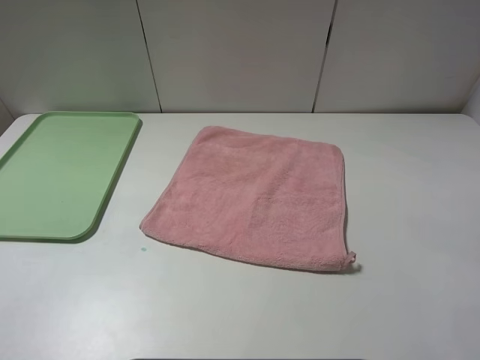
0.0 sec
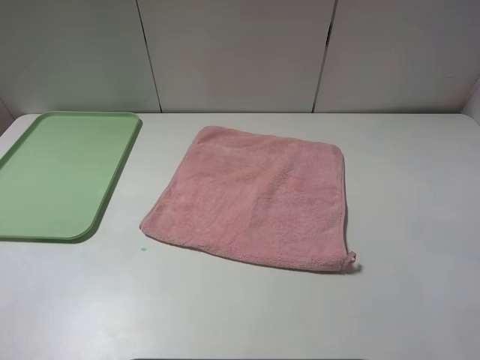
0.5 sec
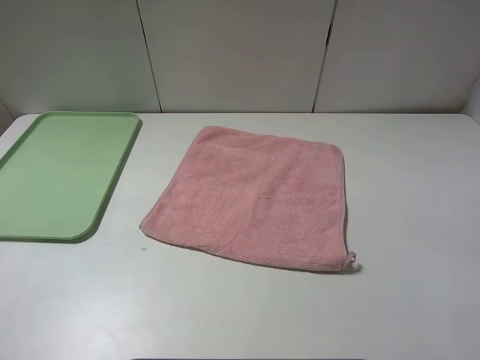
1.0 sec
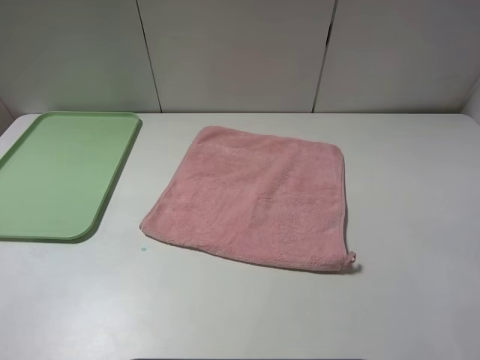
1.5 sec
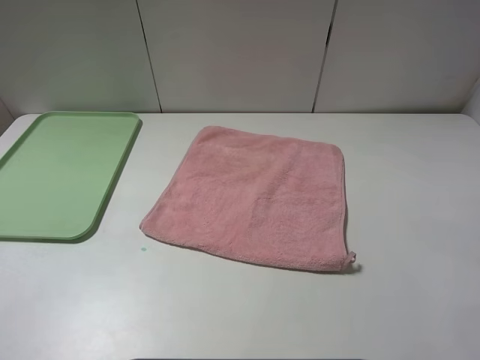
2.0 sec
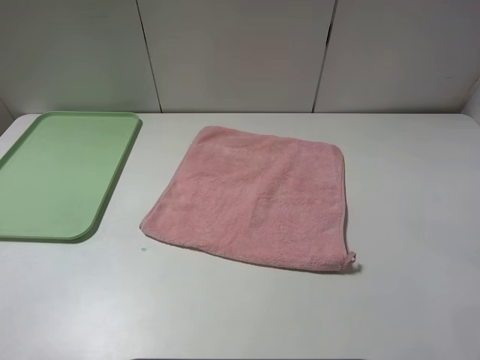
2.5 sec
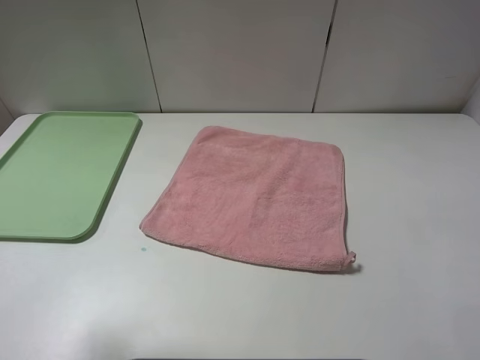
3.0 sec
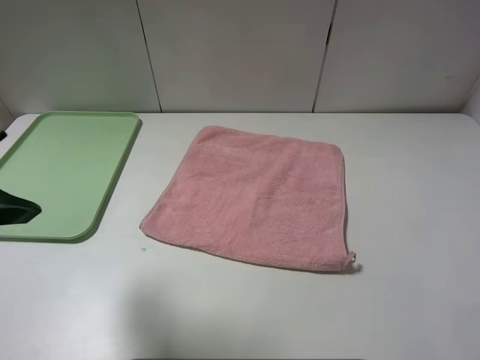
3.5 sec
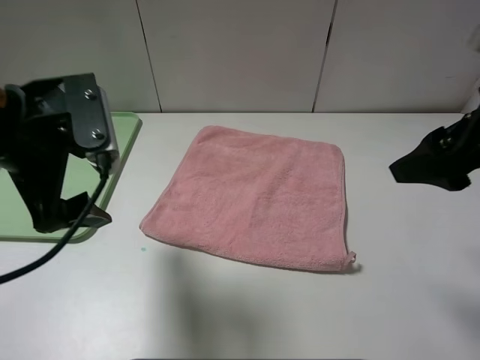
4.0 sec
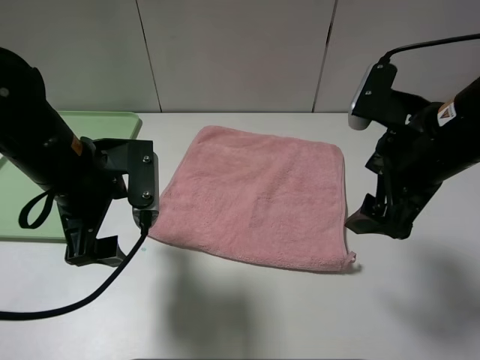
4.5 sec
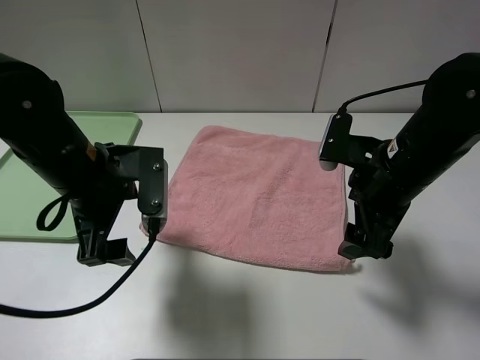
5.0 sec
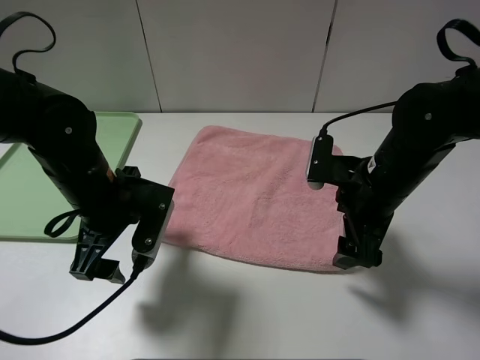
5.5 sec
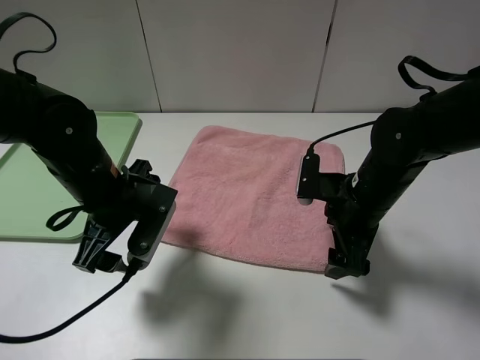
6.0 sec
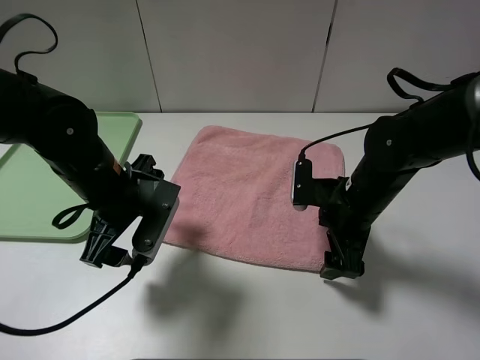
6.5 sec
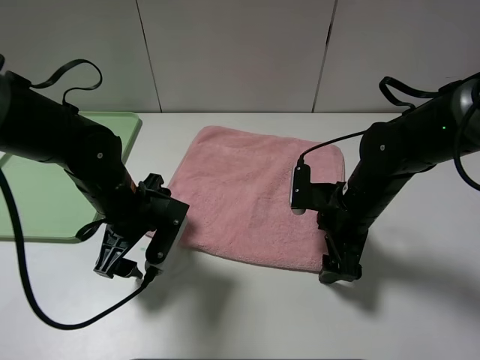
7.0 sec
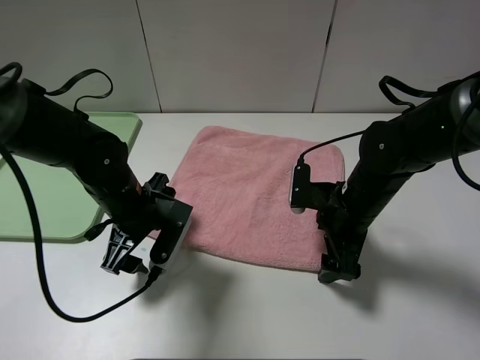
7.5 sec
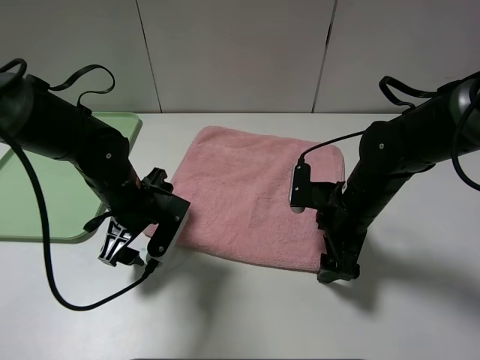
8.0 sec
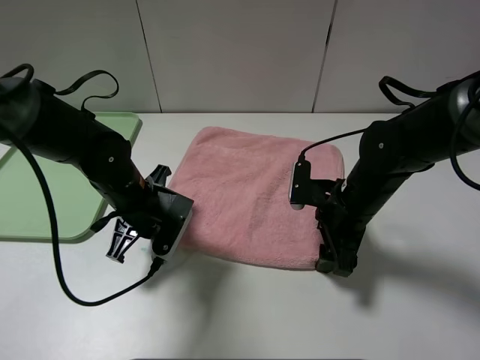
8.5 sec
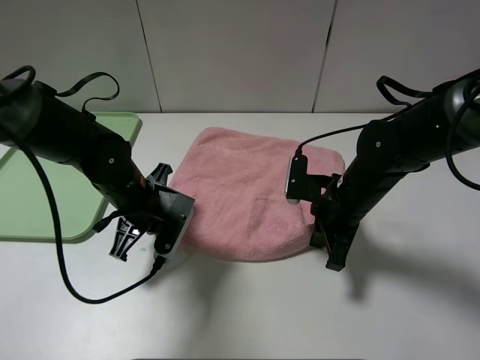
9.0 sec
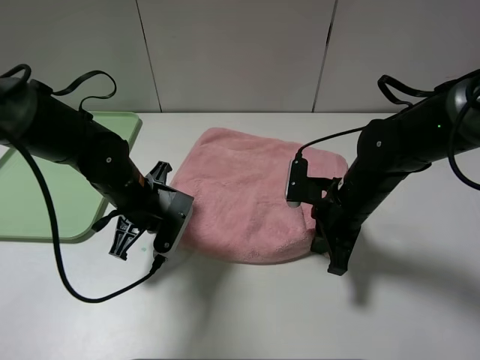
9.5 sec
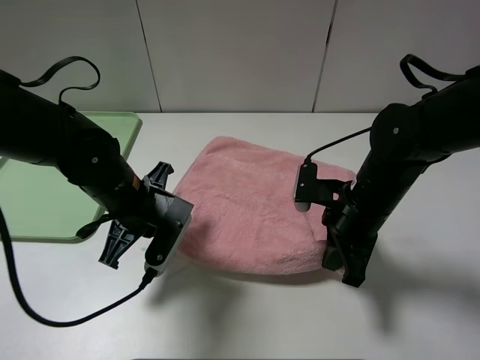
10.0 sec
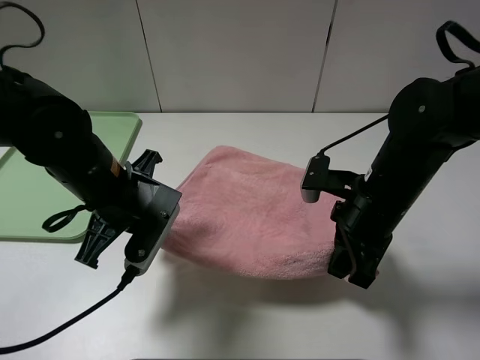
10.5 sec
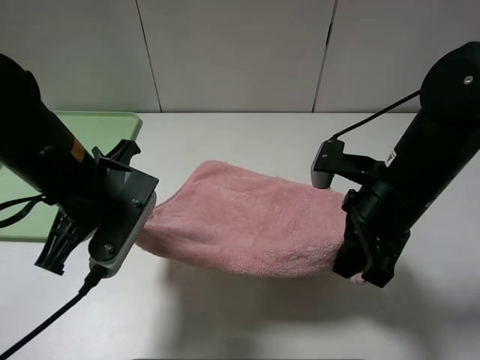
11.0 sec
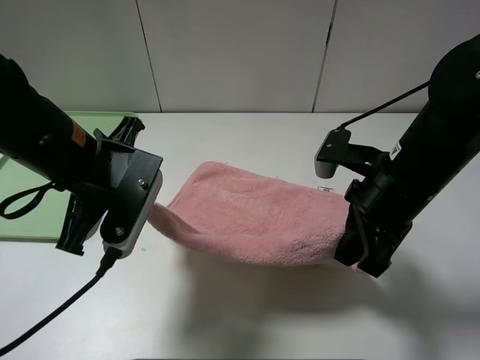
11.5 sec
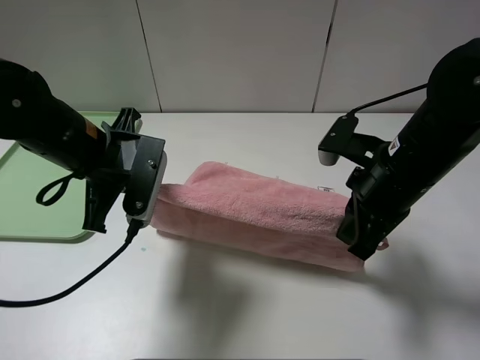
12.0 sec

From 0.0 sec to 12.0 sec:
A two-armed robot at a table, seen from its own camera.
From 0.0 sec to 2.0 sec: Both grippers stay put.
From 2.0 sec to 4.0 sec: The right gripper heads forward, covering about 20 cm, while the left gripper moves forward and to the right, about 25 cm.
From 4.0 sec to 6.0 sec: The right gripper moves downward and to the left, roughly 20 cm; the left gripper moves downward, some 10 cm.
From 6.0 sec to 8.0 sec: The left gripper shifts roughly 5 cm downward.
From 8.0 sec to 10.0 sec: The left gripper closes; the right gripper closes up.
From 10.0 sec to 12.0 sec: Both grippers travel together upward, about 5 cm.

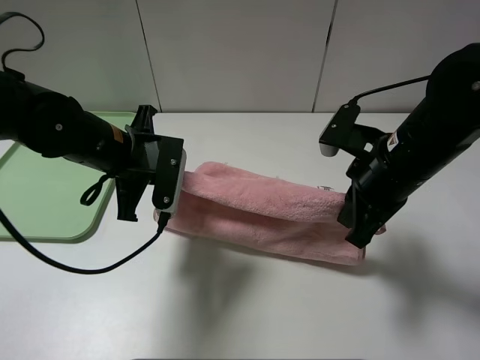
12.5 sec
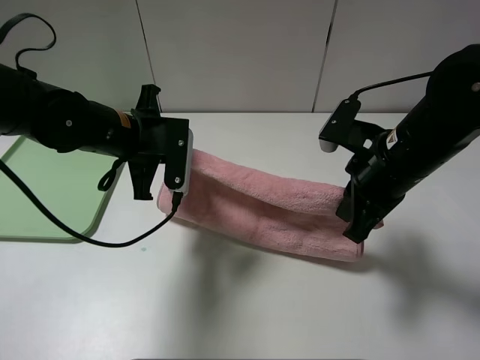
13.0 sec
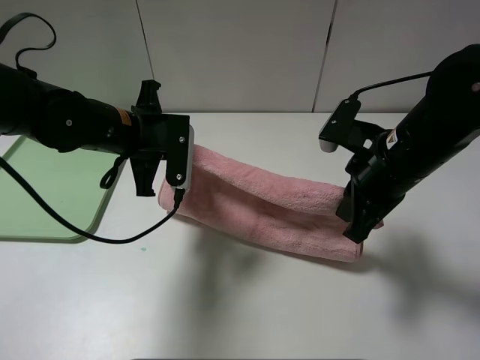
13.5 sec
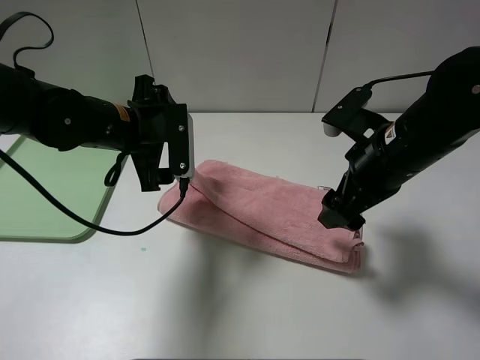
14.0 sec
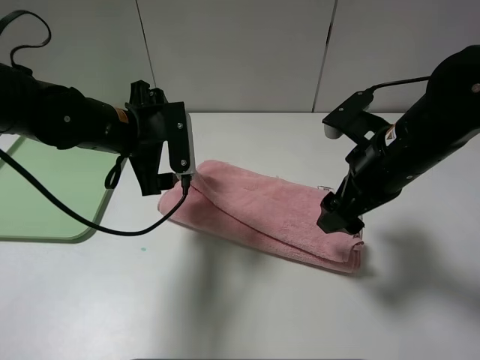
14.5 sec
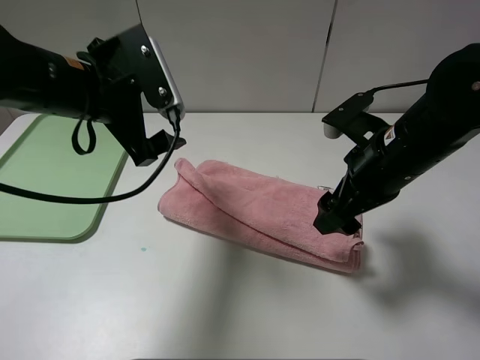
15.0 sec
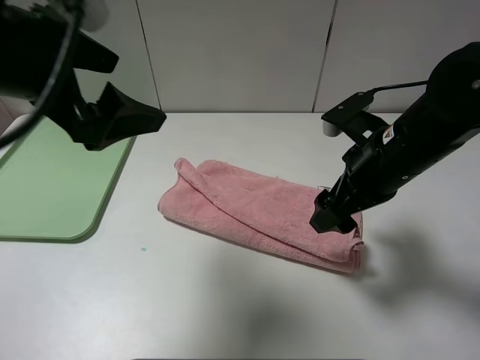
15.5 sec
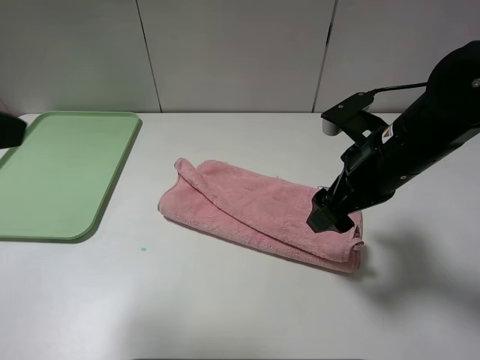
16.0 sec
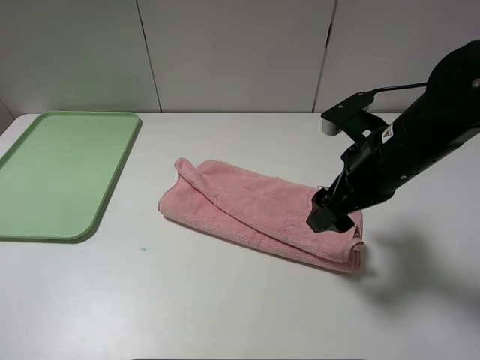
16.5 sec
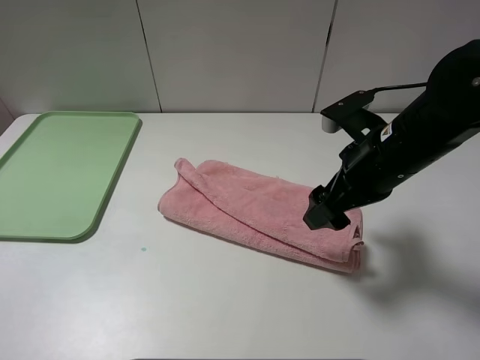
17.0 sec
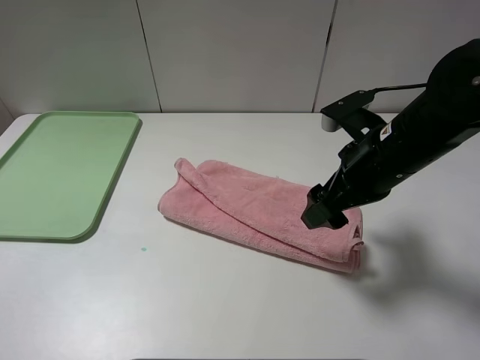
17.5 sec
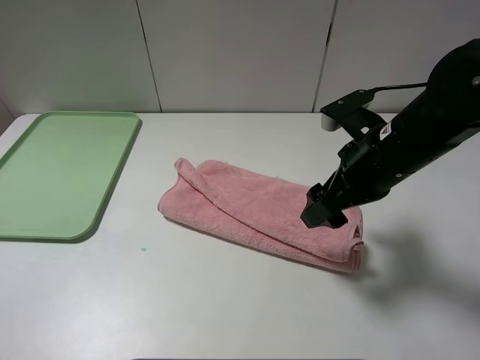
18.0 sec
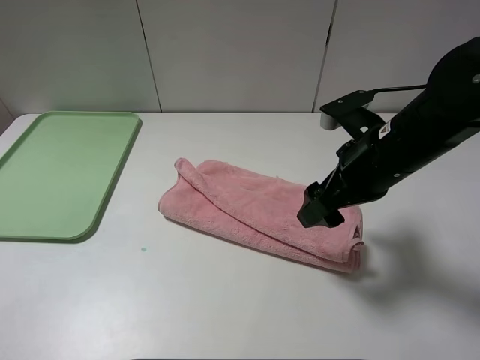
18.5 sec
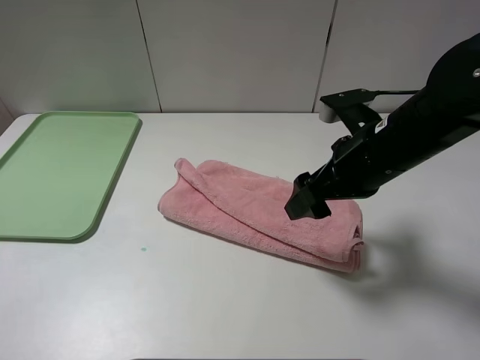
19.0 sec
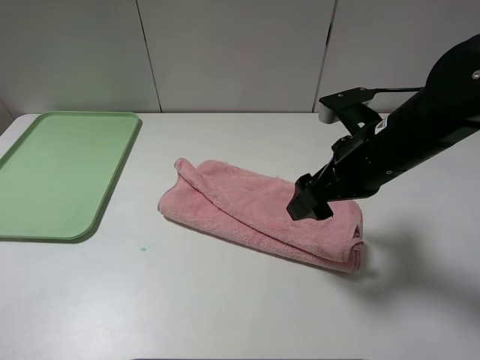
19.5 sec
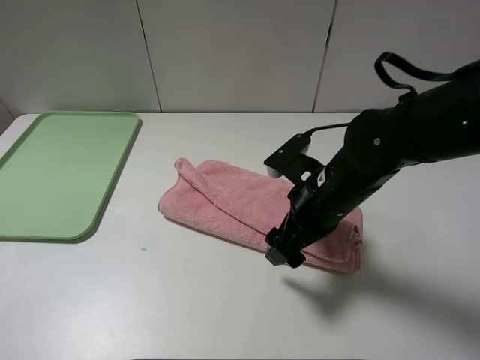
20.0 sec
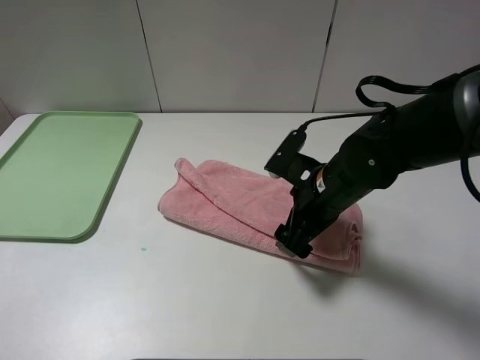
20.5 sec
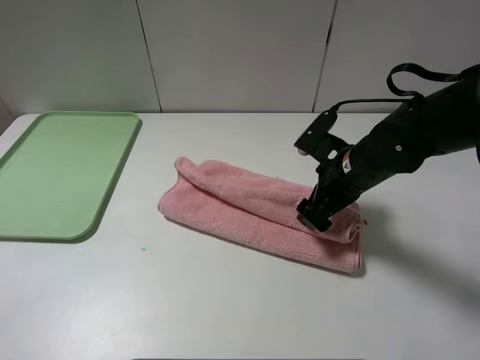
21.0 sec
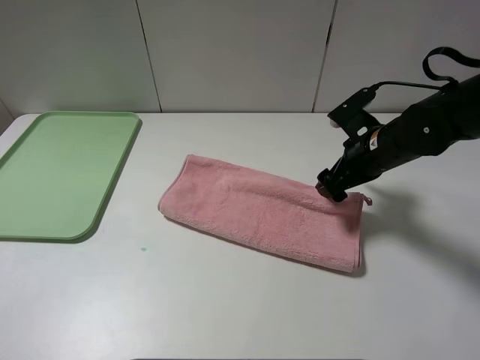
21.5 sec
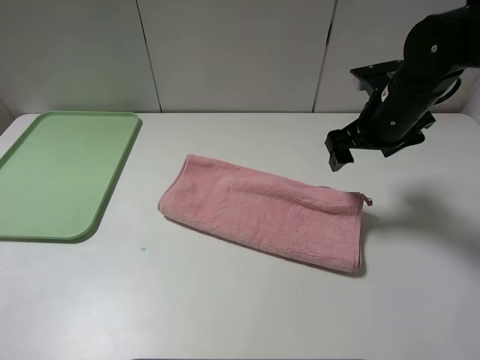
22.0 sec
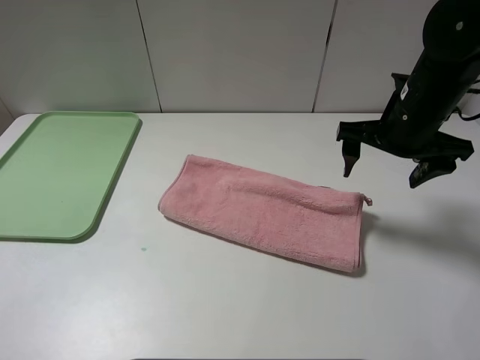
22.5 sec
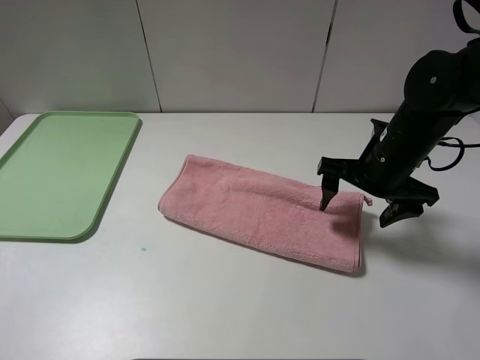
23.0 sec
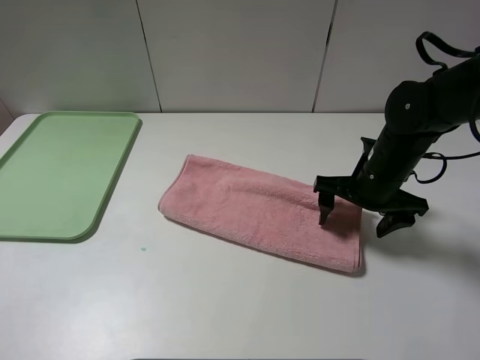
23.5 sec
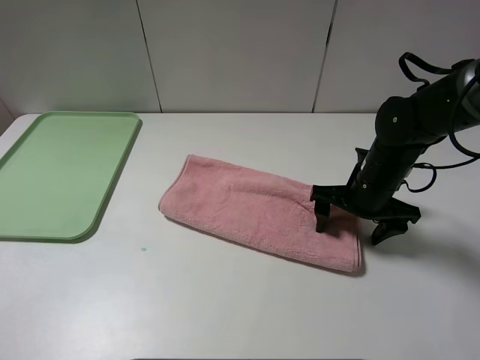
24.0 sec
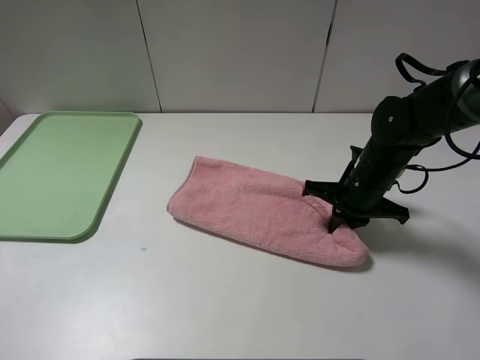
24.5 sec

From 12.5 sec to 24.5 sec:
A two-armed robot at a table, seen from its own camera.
From 12.5 sec to 14.5 sec: The right gripper opens up; the left gripper opens up.
From 14.5 sec to 16.5 sec: The left gripper heads backward, to the left and upward, covering some 35 cm.
From 18.5 sec to 20.5 sec: The right gripper is displaced downward by about 5 cm.
From 20.5 sec to 22.5 sec: The right gripper travels to the right and upward by roughly 10 cm.
From 22.5 sec to 24.5 sec: The right gripper heads downward, covering some 10 cm, and closes.

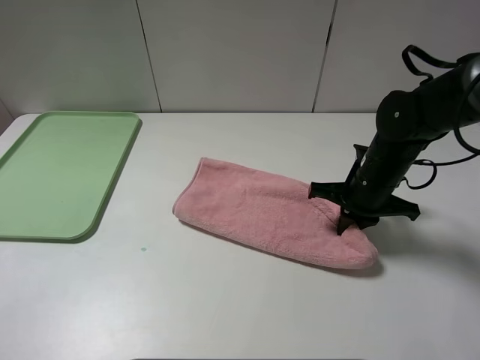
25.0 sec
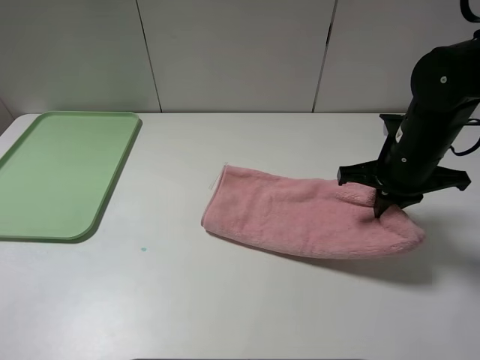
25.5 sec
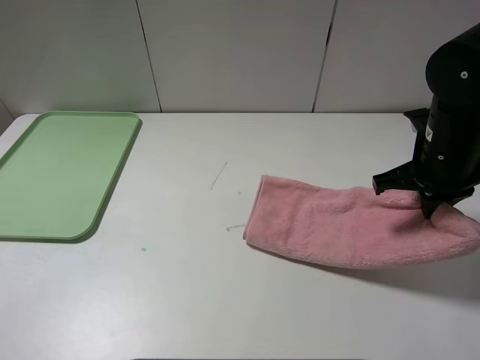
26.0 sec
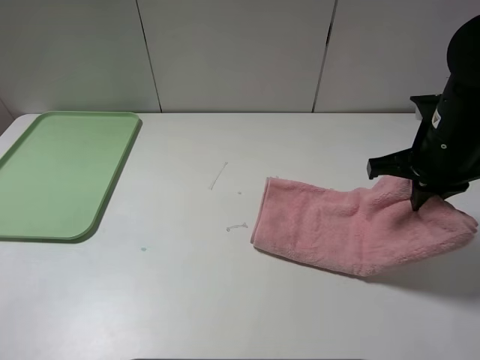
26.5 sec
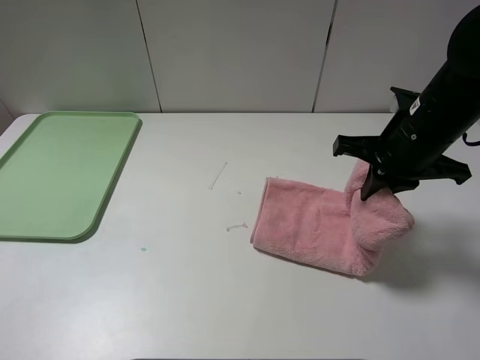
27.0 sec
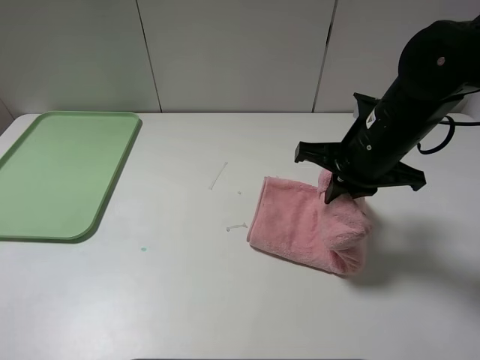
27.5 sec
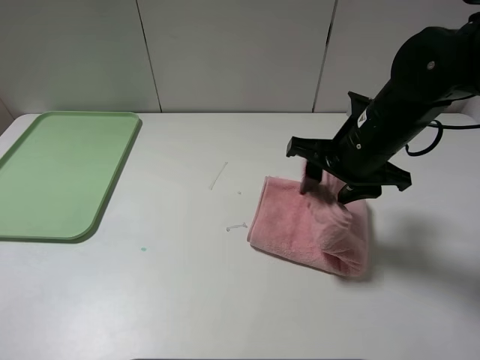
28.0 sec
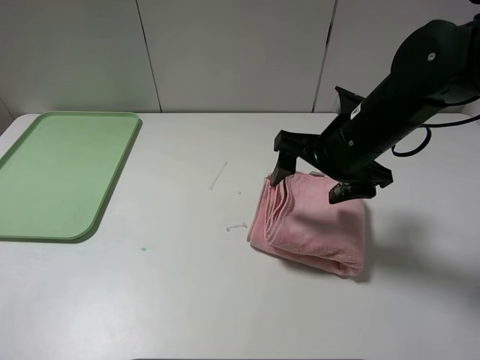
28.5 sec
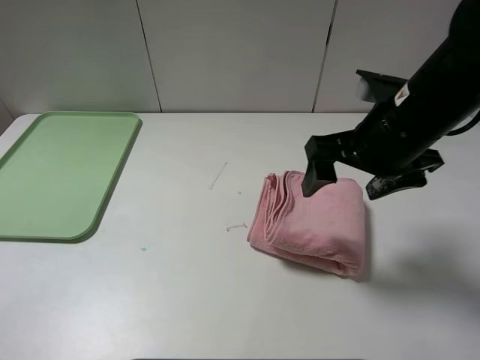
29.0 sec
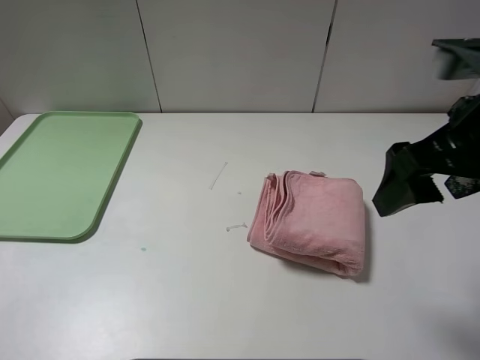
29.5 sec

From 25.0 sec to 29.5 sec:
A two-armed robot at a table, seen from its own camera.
Step, from 25.0 sec to 28.0 sec: Fold the pink towel from right to left with right gripper.
From 25.0 sec to 27.0 sec: The right gripper heads upward, covering roughly 10 cm.
From 27.0 sec to 29.5 sec: The right gripper is displaced backward and upward by about 15 cm, and opens.
